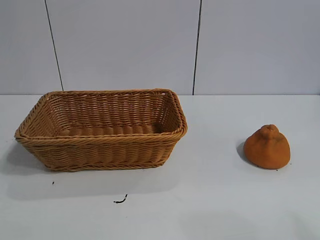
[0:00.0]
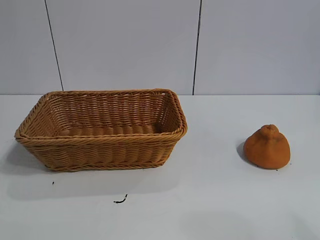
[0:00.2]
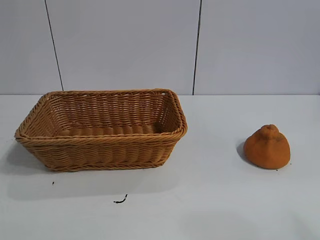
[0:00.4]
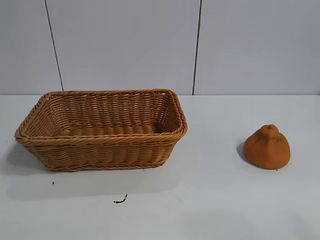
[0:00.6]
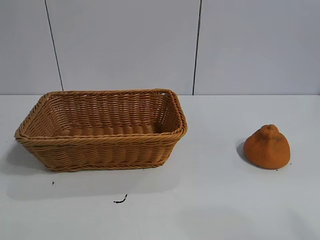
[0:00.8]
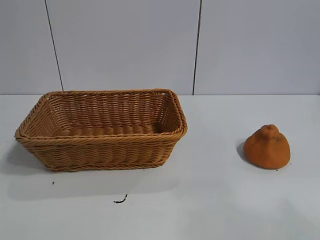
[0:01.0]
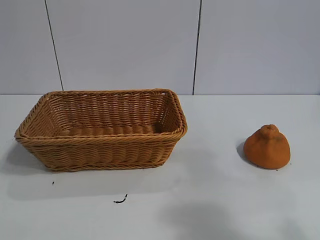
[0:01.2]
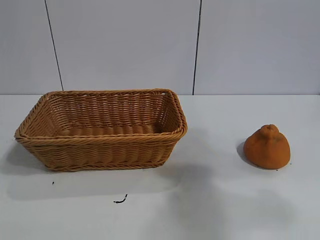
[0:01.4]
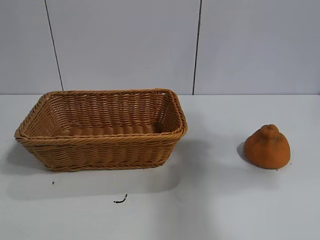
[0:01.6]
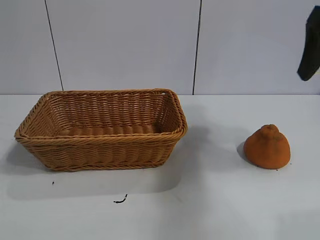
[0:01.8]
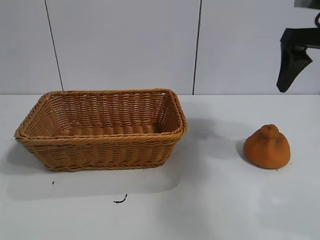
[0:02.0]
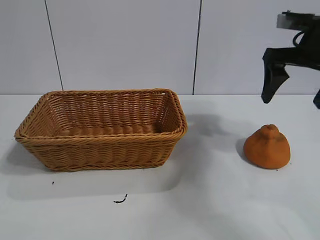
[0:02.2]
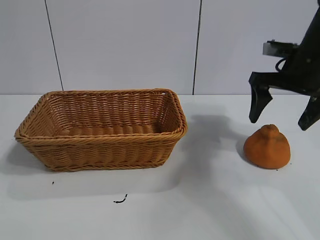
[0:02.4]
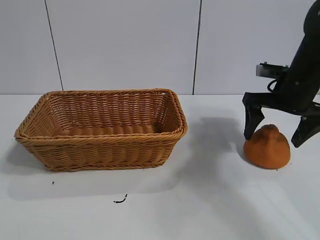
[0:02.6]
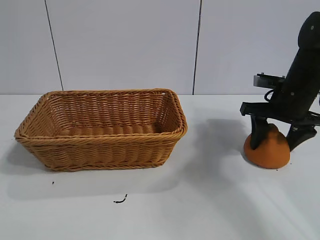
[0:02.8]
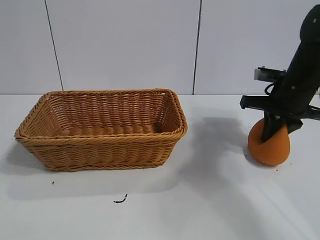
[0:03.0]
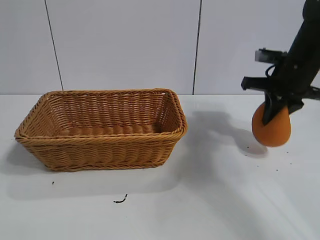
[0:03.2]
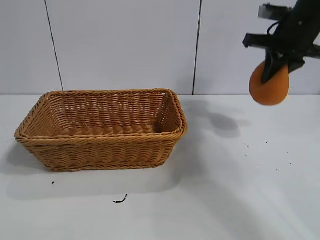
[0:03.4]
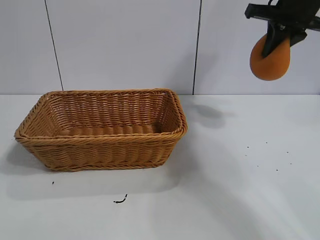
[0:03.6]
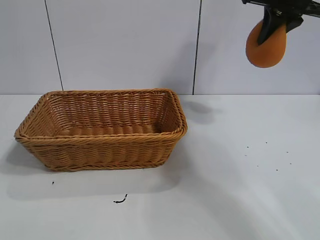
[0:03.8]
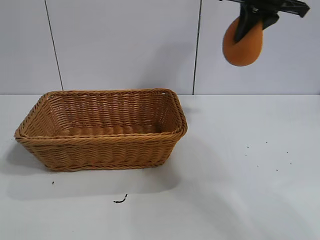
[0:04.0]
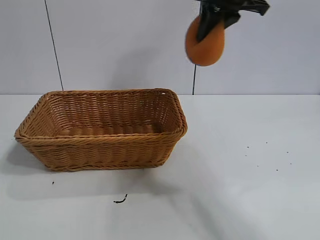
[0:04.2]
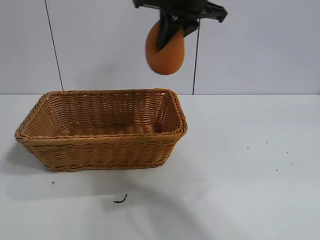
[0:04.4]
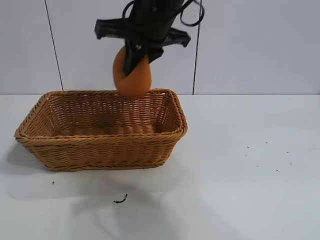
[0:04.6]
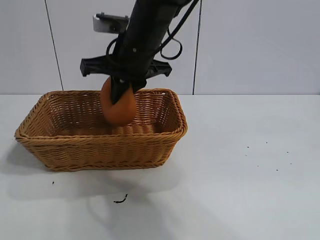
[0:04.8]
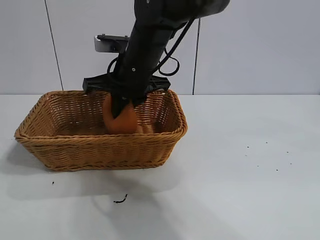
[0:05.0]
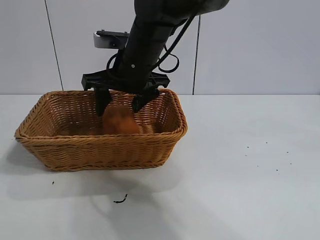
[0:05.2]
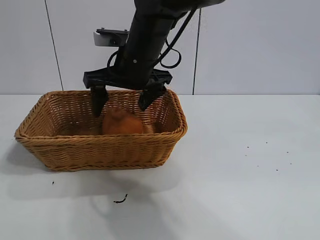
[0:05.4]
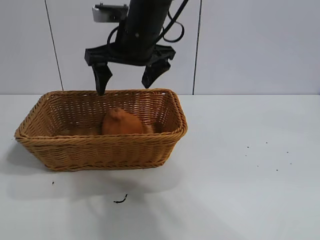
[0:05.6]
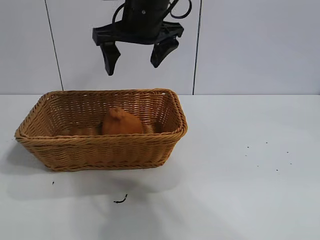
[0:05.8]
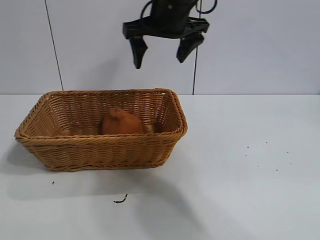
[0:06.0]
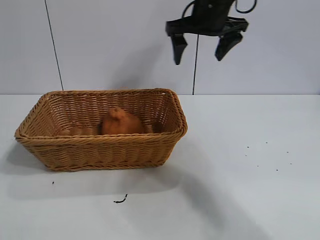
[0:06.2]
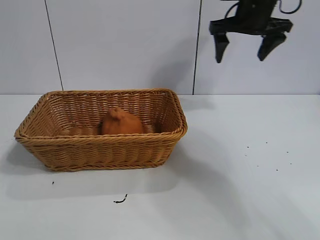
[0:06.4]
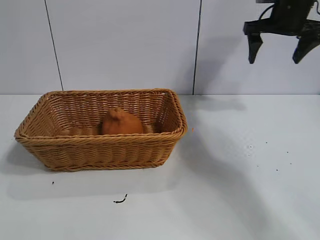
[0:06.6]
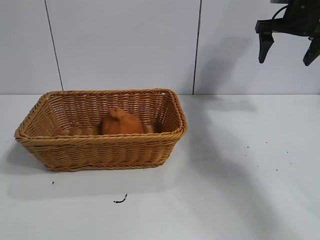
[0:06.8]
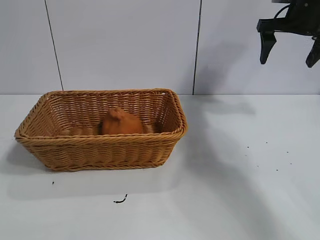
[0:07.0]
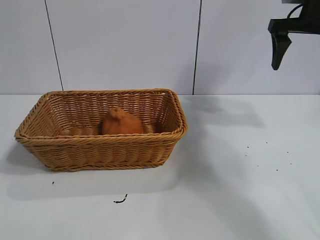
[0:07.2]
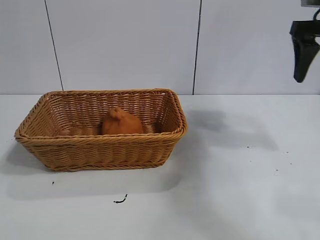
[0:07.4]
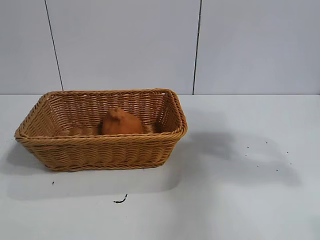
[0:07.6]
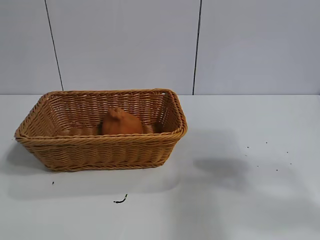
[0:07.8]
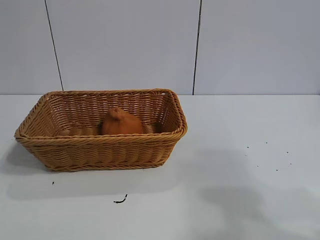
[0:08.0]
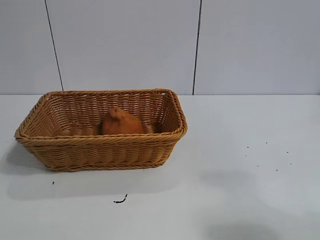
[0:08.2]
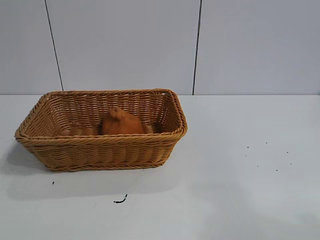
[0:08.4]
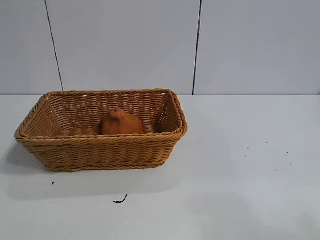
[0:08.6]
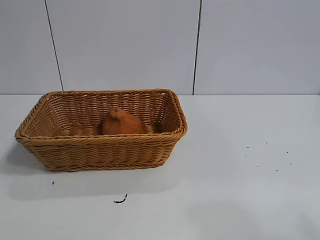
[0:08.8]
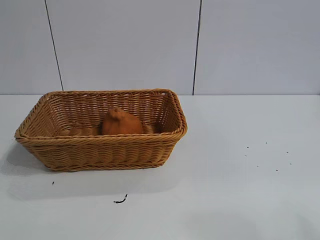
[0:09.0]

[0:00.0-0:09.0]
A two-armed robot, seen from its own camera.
Task of the whole recording: pick up the orange and put it into the basket.
Step, 0:00.8 to 0:02.8: Grasp the orange with right gripper.
Step, 0:03.0 to 0:05.2: Place the orange in the basket with right gripper.
